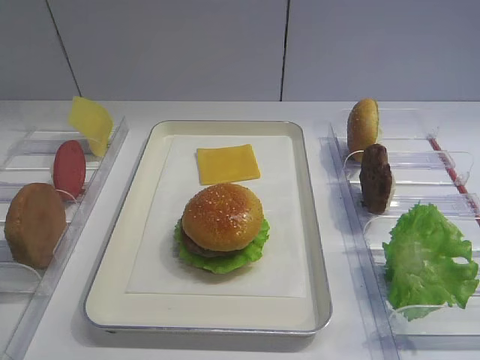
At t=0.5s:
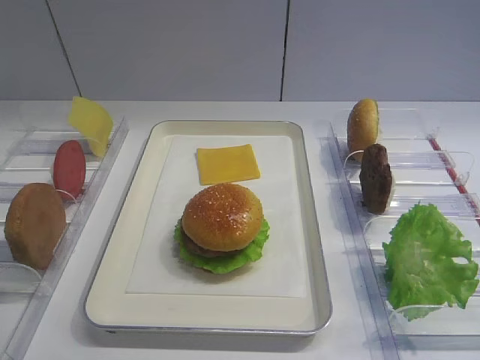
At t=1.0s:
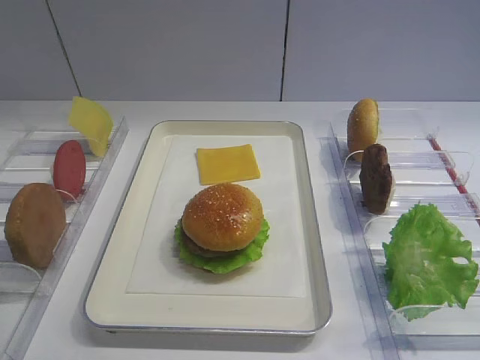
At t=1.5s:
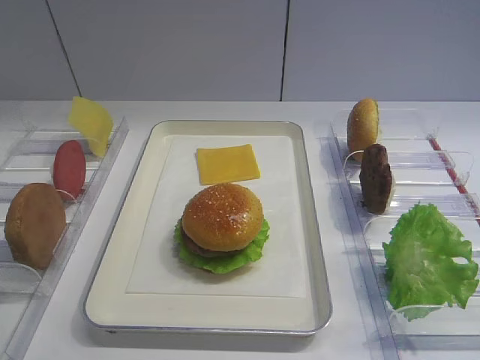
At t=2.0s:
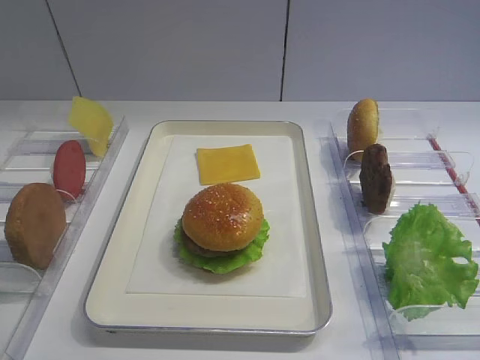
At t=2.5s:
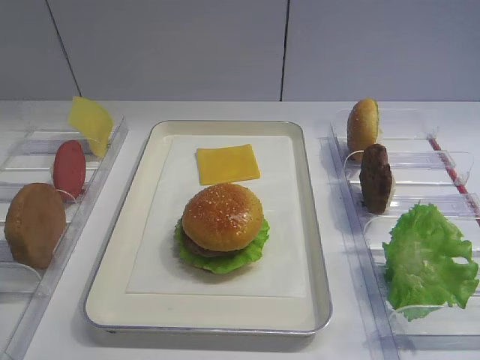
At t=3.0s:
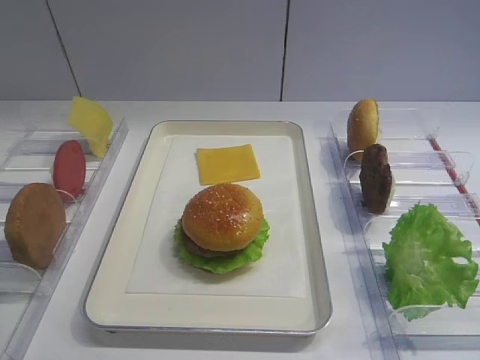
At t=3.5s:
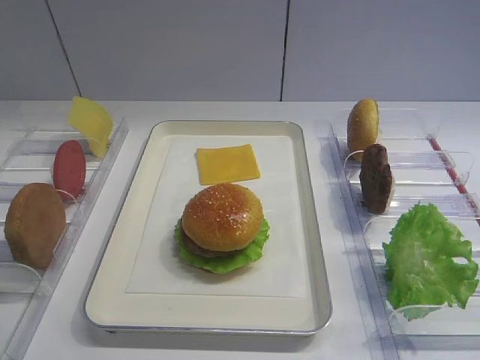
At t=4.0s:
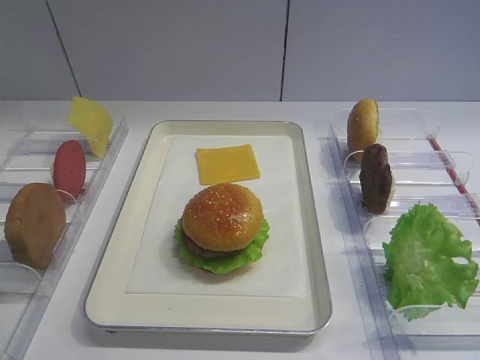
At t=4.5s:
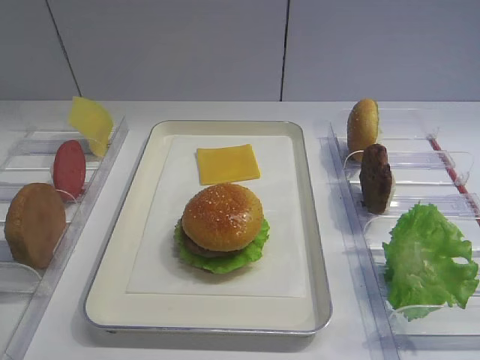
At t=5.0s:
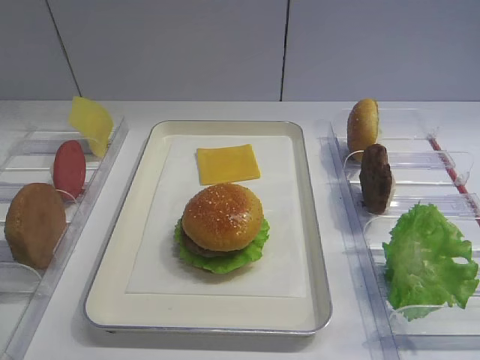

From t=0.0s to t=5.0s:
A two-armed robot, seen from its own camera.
From t=0.0s to t=5.0s: Both grippers stay about where they are.

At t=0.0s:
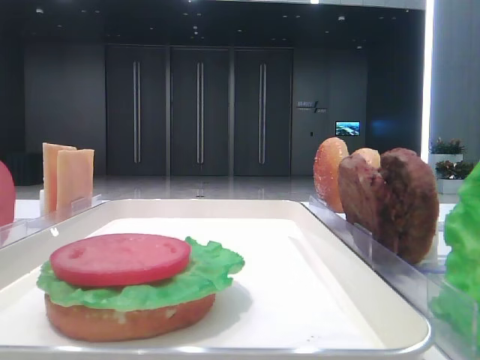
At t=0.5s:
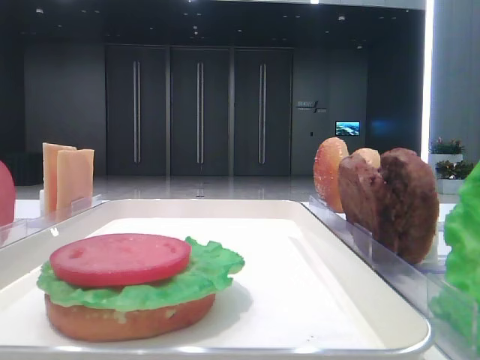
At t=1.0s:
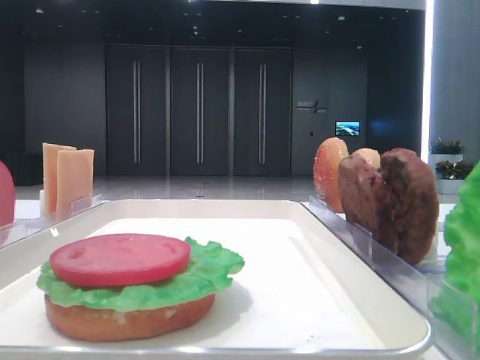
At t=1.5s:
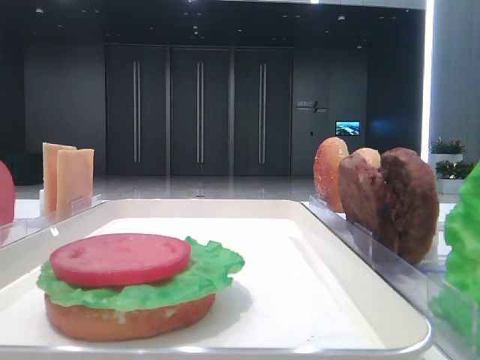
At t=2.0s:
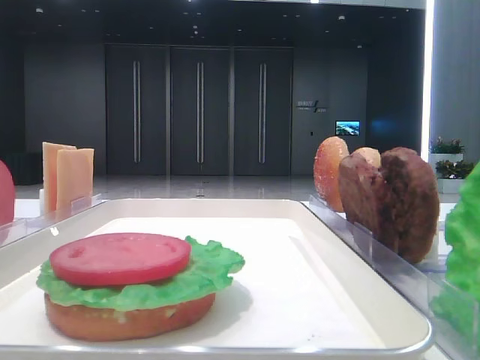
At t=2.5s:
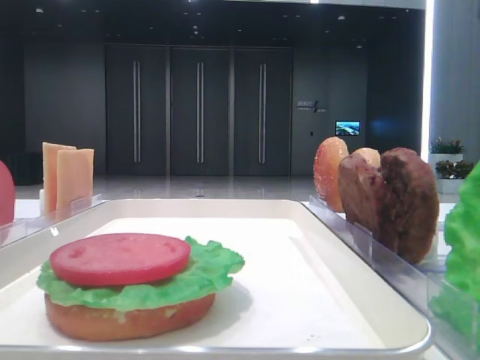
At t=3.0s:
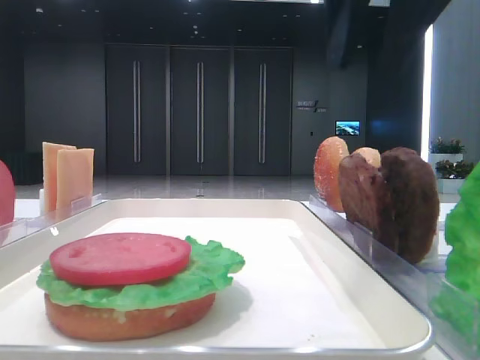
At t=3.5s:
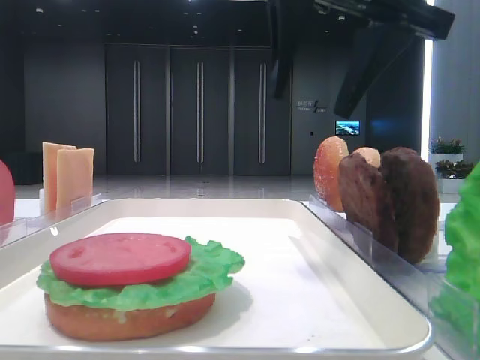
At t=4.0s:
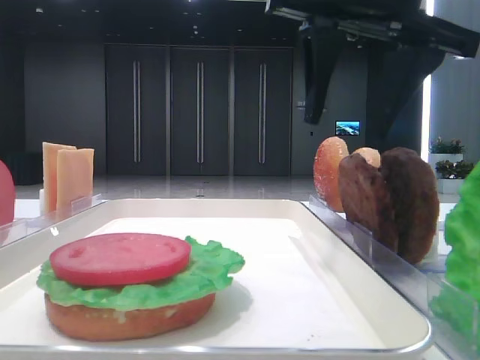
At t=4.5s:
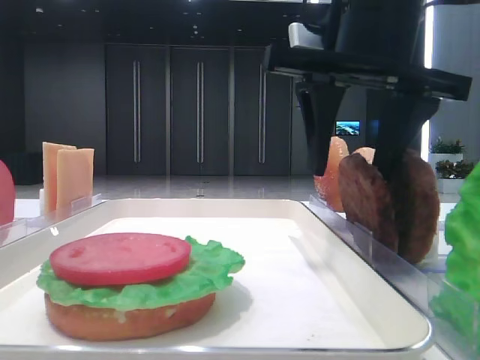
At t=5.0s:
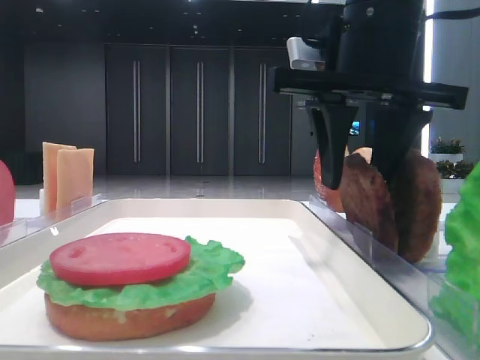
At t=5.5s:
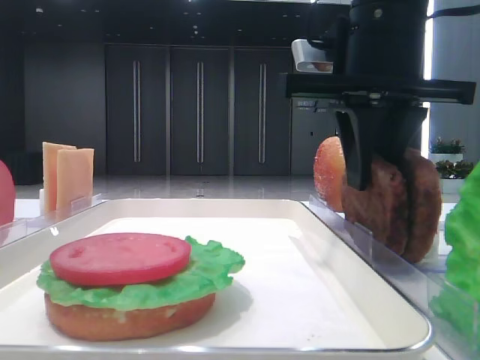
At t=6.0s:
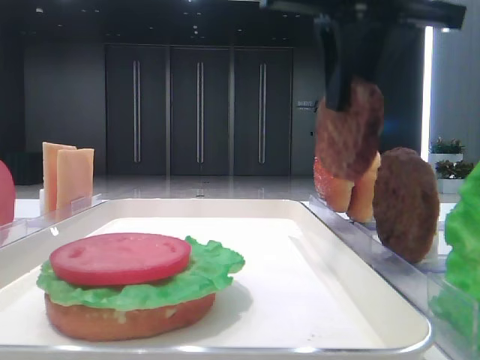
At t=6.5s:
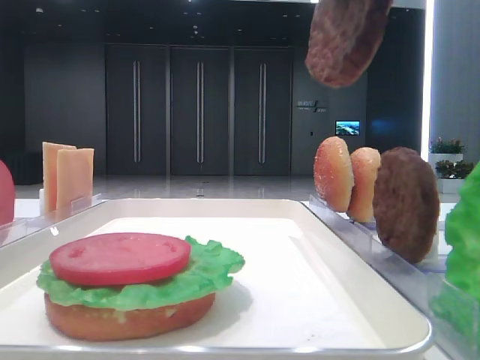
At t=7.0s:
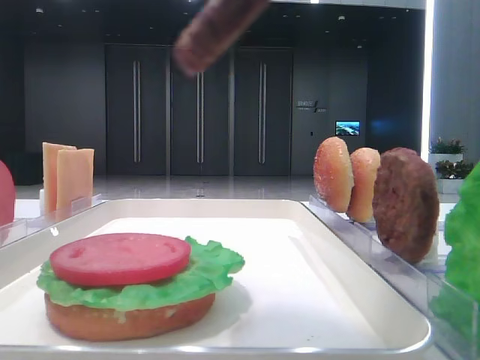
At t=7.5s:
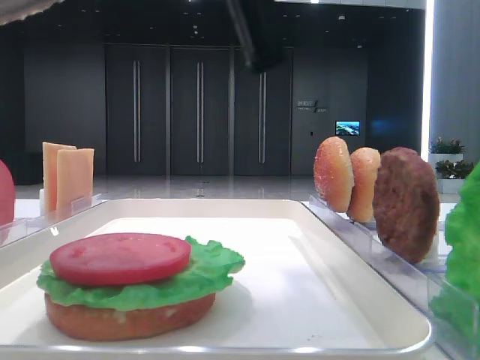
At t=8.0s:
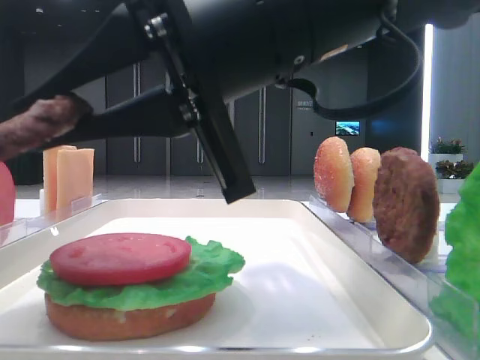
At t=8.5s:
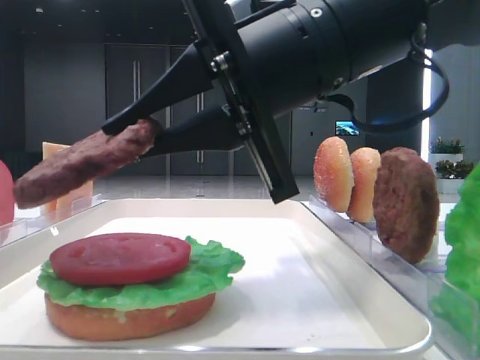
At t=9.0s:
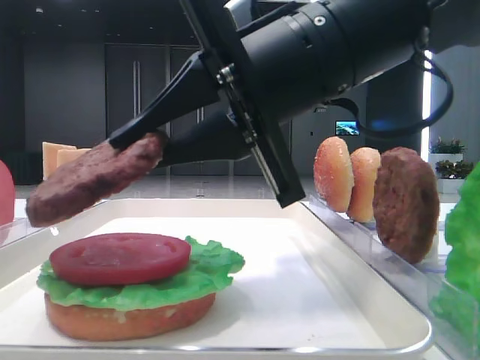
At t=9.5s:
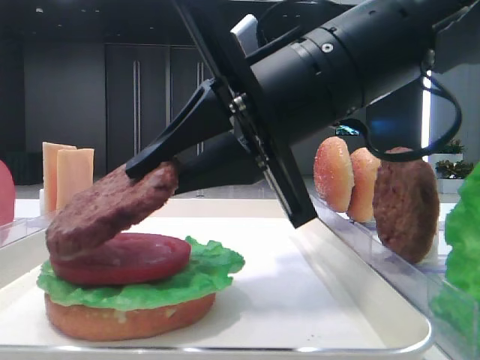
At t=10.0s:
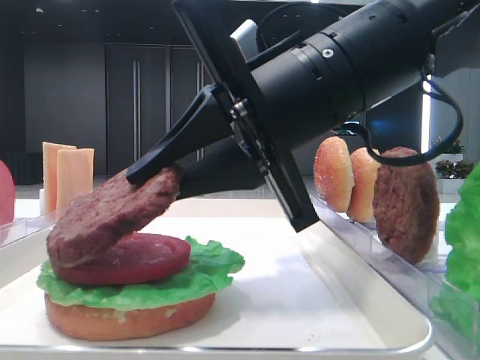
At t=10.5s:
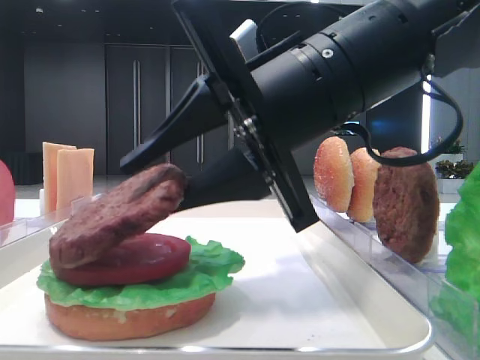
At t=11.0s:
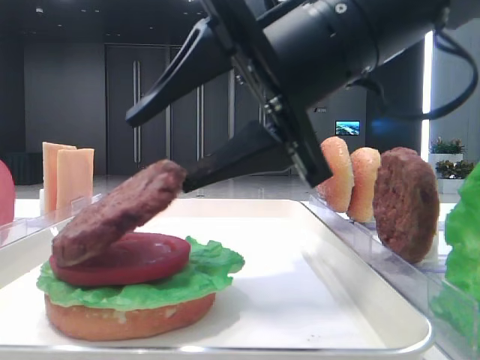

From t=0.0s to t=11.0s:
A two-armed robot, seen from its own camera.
Step, from t=0.0s to t=5.5s: Grab the patty with the right hand.
Step, from t=6.0s to t=11.0s: Place the patty on the tomato slice with the right hand.
From t=2.0s to t=3.5s: The right gripper heads to the left, covering roughly 20 cm, and opens its fingers.
From t=3.5s to t=5.5s: The right gripper travels downward by roughly 5 cm, and closes its fingers.
From t=5.5s to t=7.5s: The right gripper goes approximately 15 cm backward and to the left.
From t=7.5s to t=9.0s: The right gripper travels downward and forward by approximately 10 cm.
From t=9.0s to t=11.0s: The right gripper opens its fingers.

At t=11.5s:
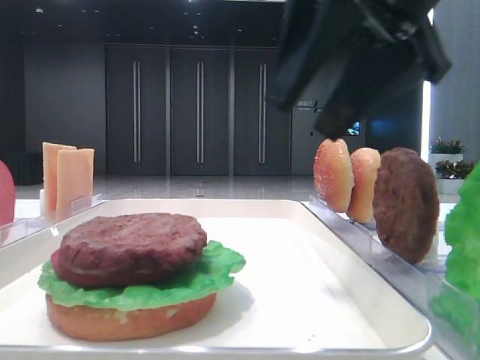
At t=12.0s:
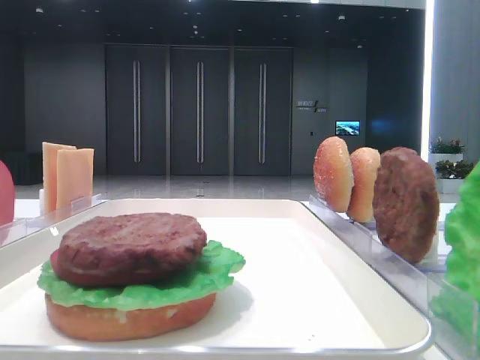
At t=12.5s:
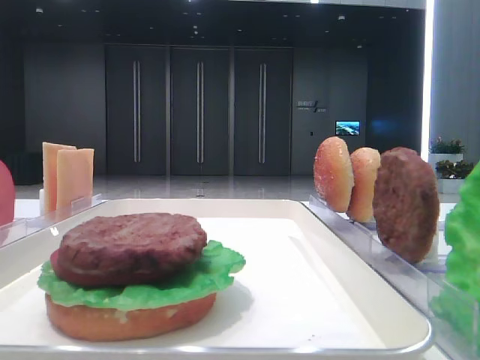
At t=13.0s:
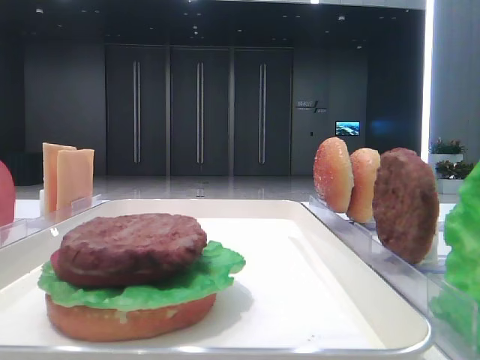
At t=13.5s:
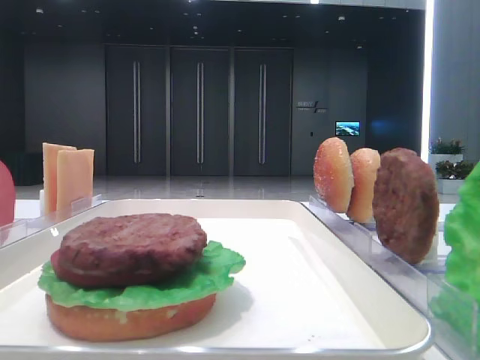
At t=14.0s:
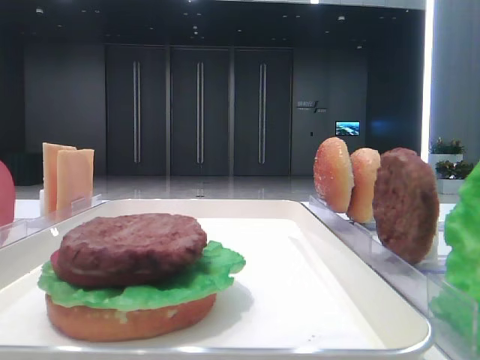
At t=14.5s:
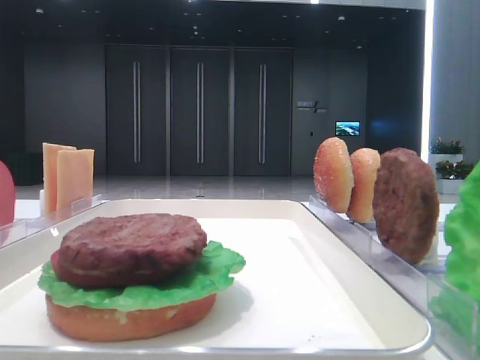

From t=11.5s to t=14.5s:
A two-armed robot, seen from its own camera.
From t=11.5s to t=13.0s: The right gripper goes roughly 25 cm to the right, backward and upward, and closes up.

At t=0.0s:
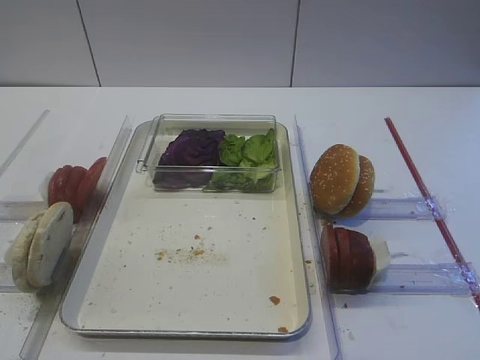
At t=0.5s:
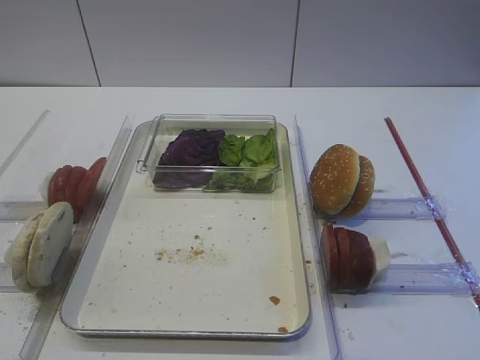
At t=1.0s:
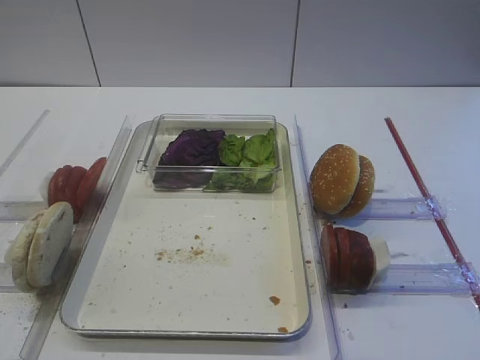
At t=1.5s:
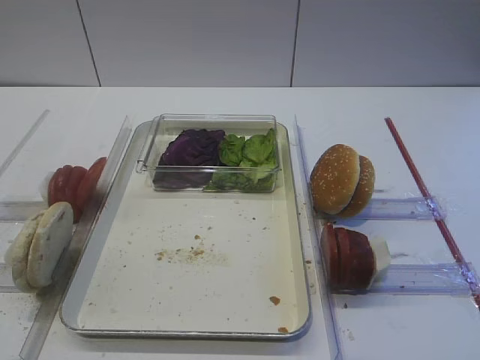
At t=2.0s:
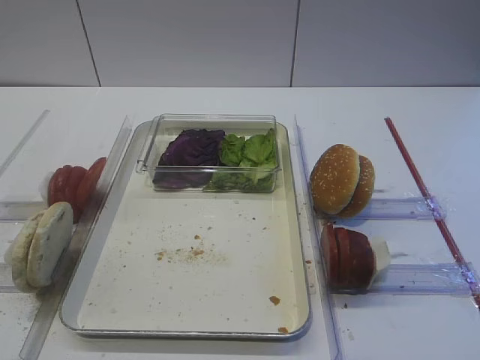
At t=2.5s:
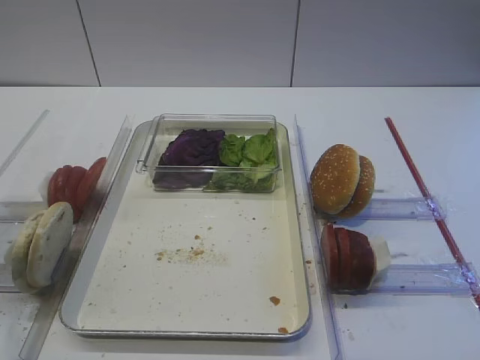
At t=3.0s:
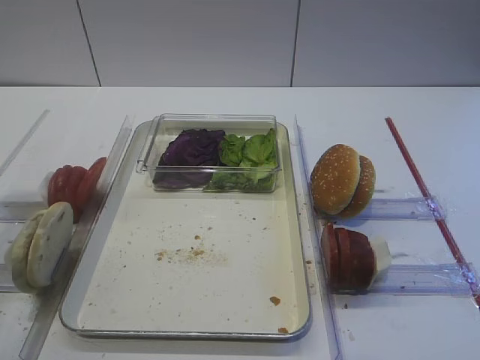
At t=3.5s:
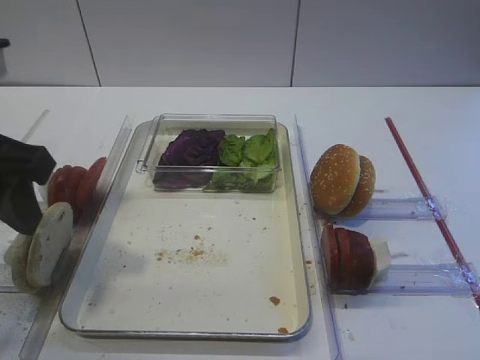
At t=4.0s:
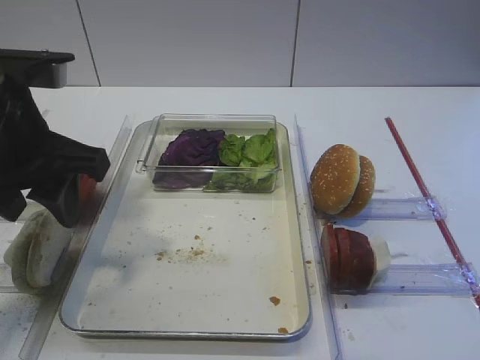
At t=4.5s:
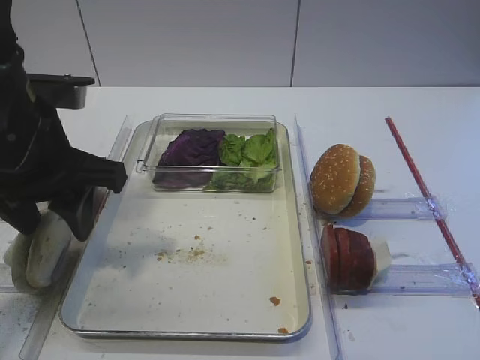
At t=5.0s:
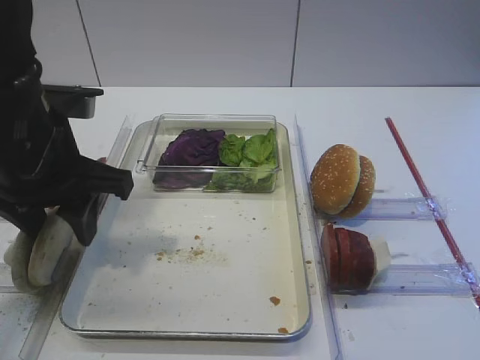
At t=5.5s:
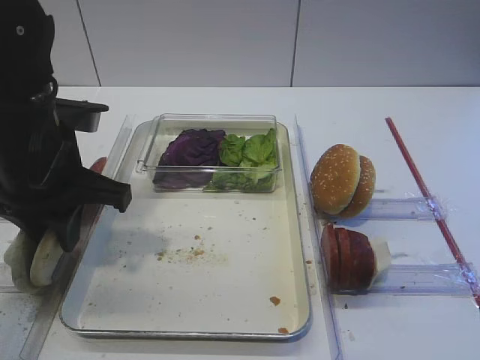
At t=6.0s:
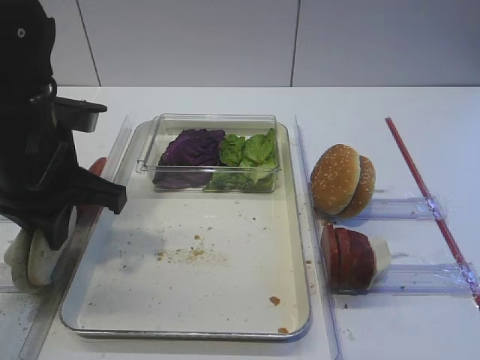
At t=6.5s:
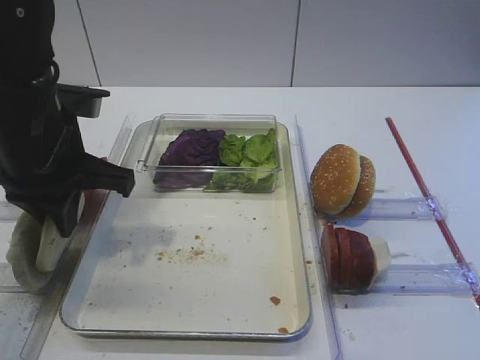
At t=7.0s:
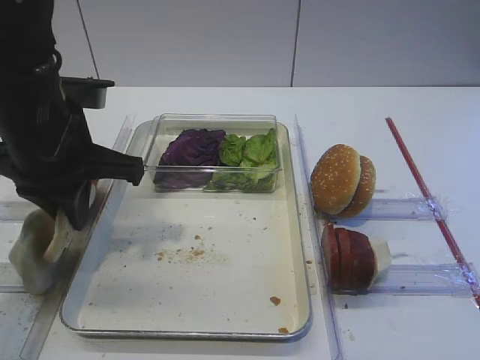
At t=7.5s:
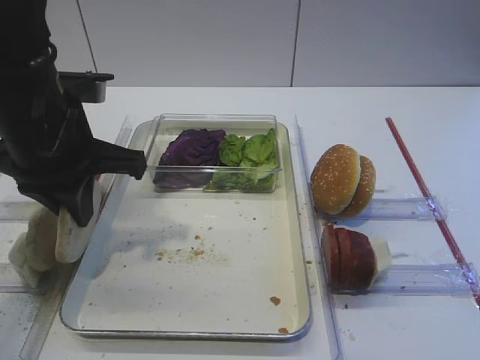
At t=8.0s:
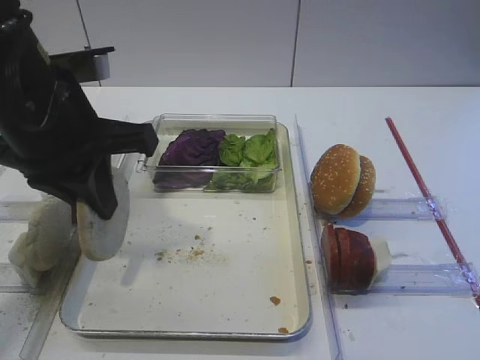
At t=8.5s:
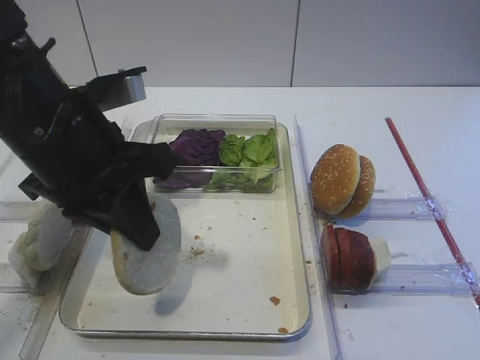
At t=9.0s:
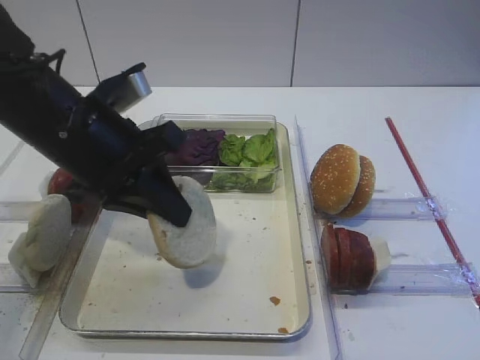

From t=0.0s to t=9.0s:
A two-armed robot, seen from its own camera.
Step, from t=0.0s to t=7.5s: Pick up the bread slice with the left gripper.
From t=2.0s to t=4.5s: The left gripper travels forward and to the right by roughly 25 cm.
From t=4.5s to t=7.0s: The left gripper closes its fingers.
